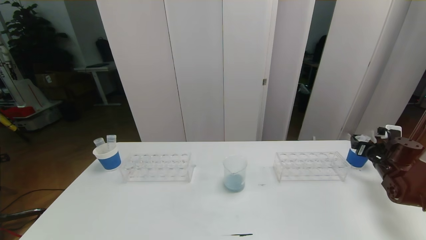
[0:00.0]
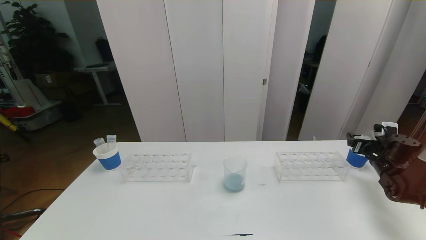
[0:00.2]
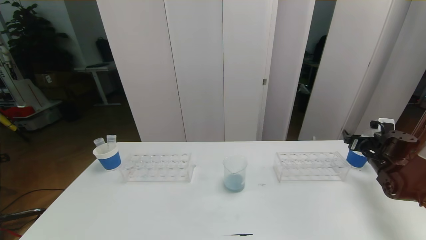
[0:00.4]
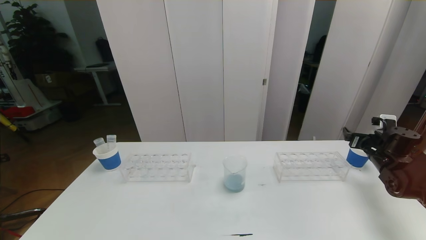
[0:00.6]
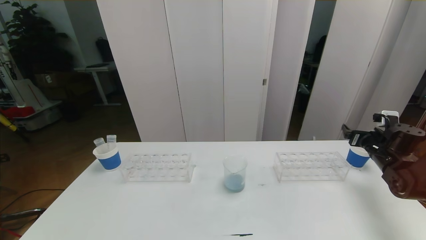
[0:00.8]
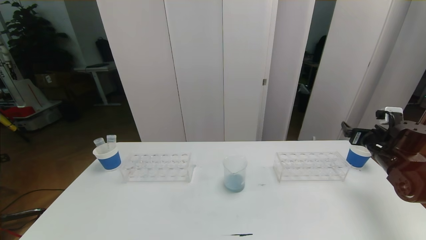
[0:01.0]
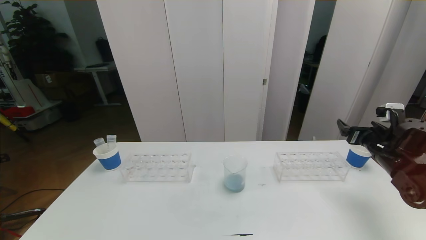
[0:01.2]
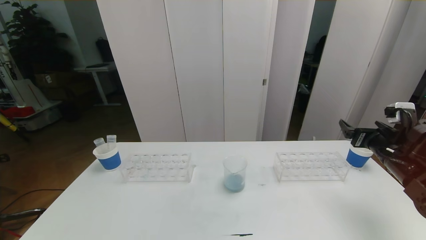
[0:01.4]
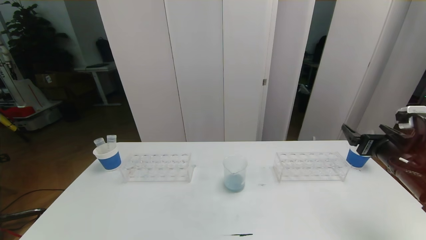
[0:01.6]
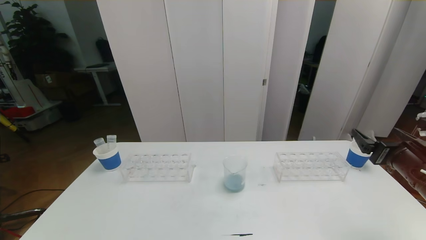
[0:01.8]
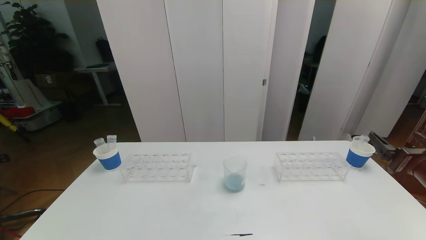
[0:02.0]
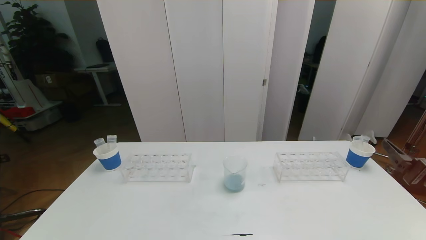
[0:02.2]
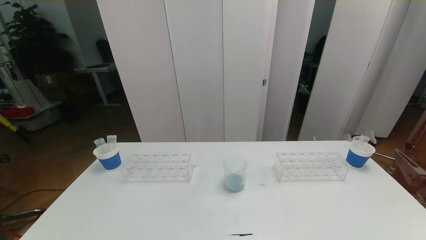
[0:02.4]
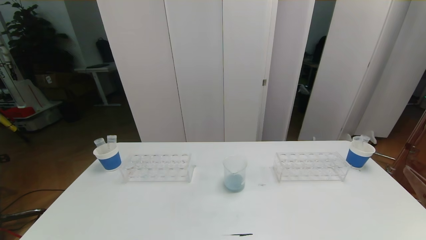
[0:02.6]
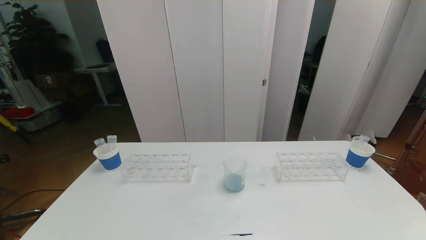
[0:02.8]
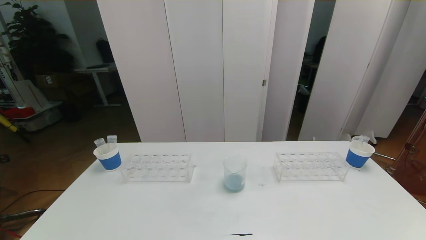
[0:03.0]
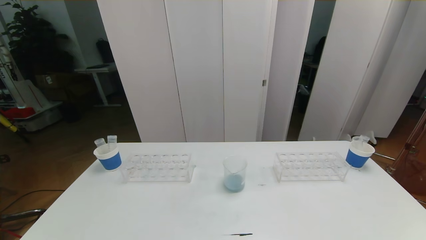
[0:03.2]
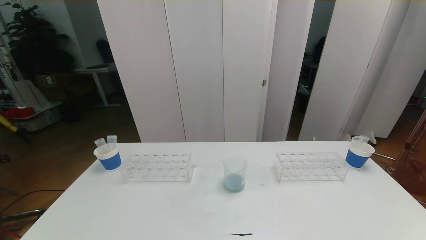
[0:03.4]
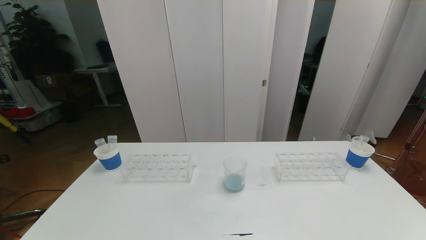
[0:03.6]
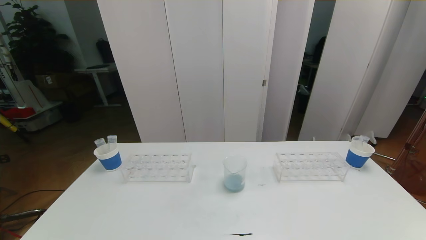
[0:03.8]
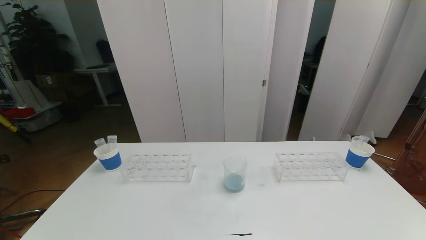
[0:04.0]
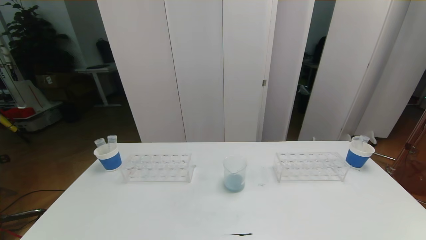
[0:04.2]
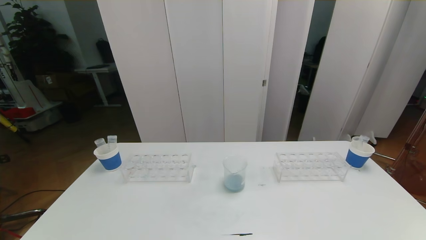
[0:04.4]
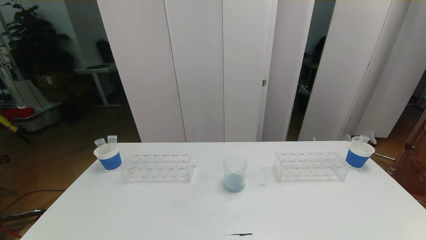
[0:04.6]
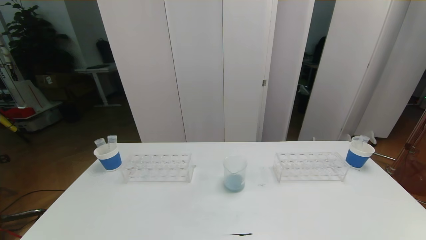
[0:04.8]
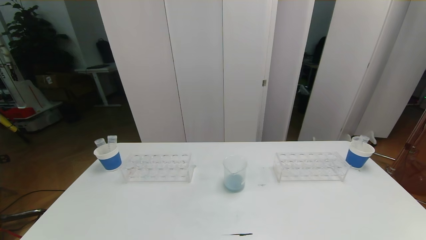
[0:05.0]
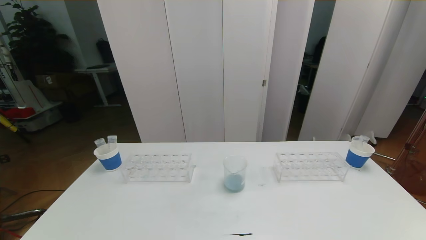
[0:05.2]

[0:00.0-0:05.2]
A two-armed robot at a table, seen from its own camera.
Task of the whole recording: pick up the test tube with red pigment the test tube with blue pigment and the test tube with white pigment by grippers and pour them into the beaker.
0:00.0 to 0:01.8: The right gripper goes about 25 cm backward, upward and to the left.
0:01.8 to 0:03.4: The right gripper travels backward by approximately 25 cm.
